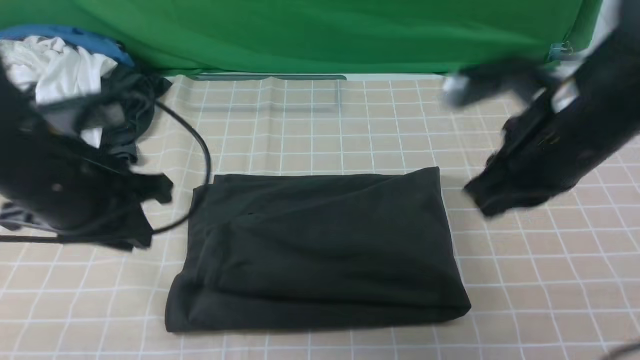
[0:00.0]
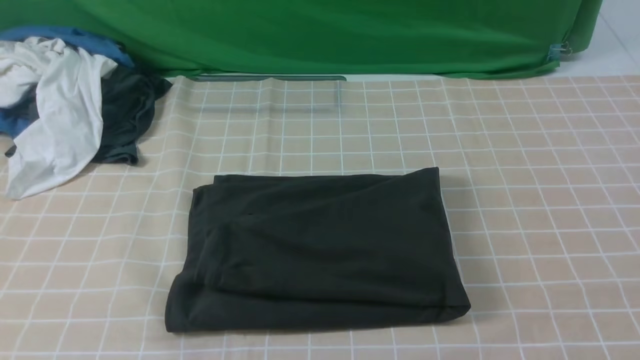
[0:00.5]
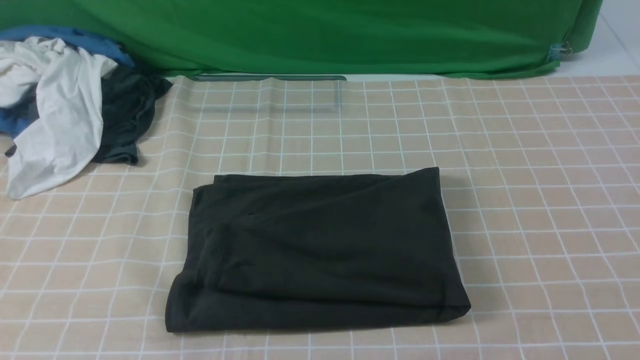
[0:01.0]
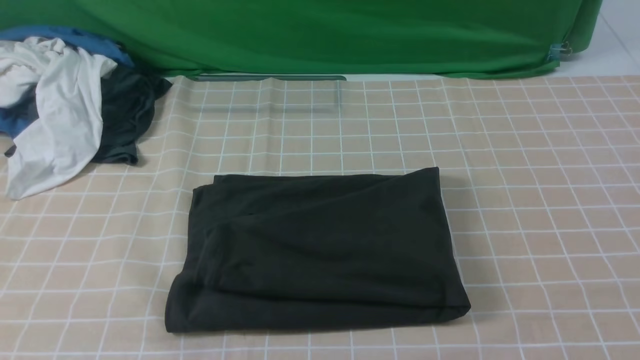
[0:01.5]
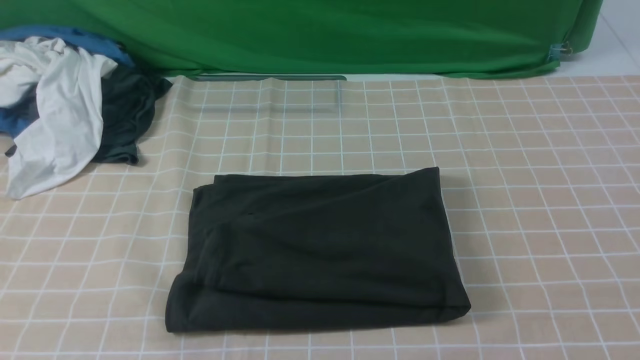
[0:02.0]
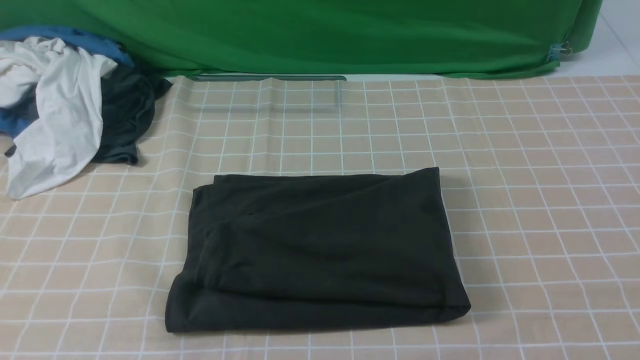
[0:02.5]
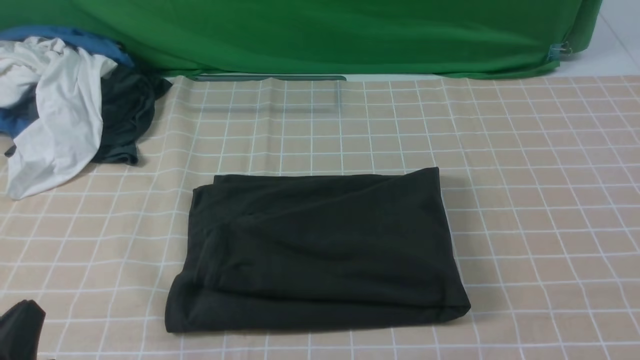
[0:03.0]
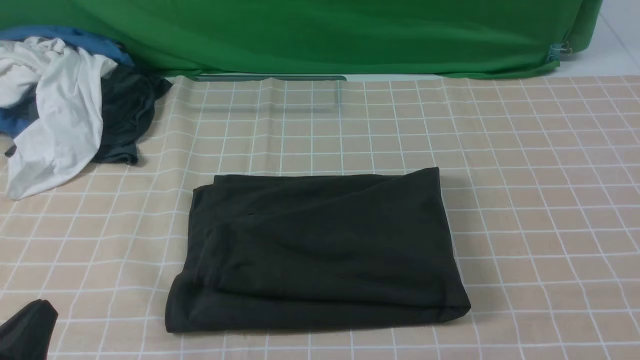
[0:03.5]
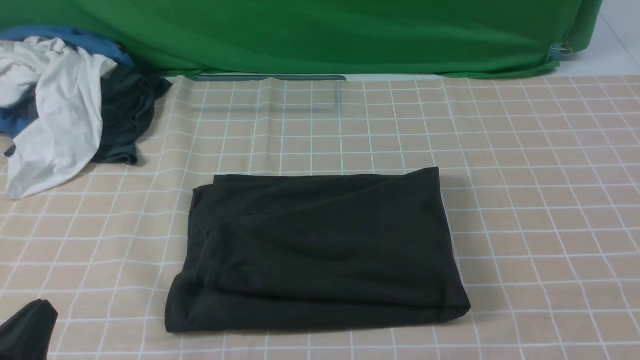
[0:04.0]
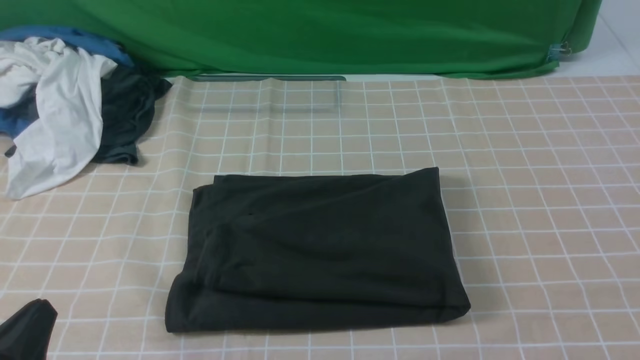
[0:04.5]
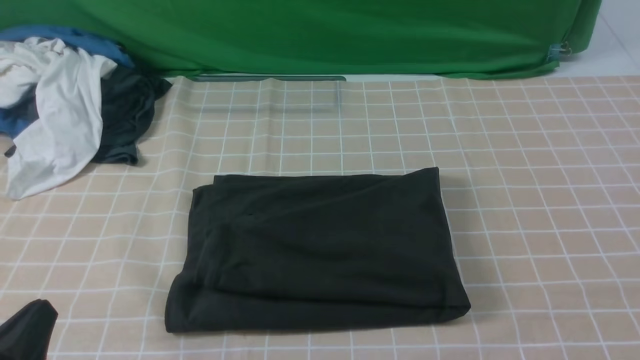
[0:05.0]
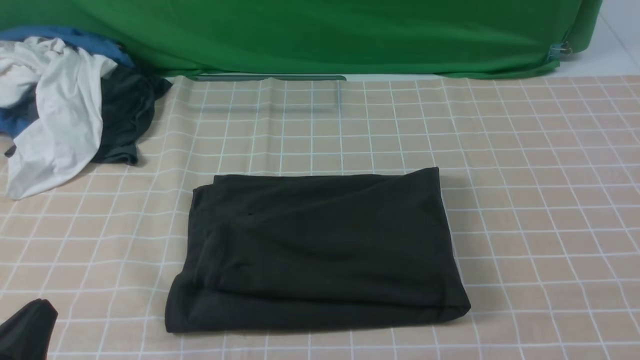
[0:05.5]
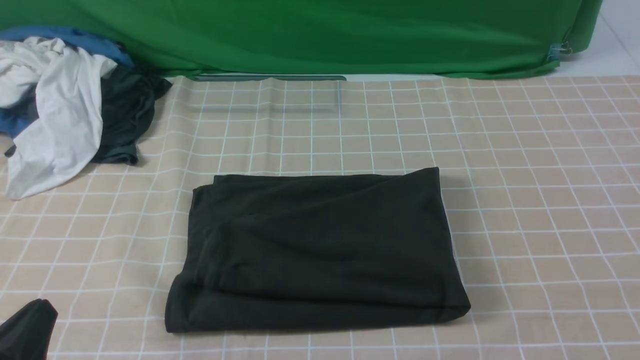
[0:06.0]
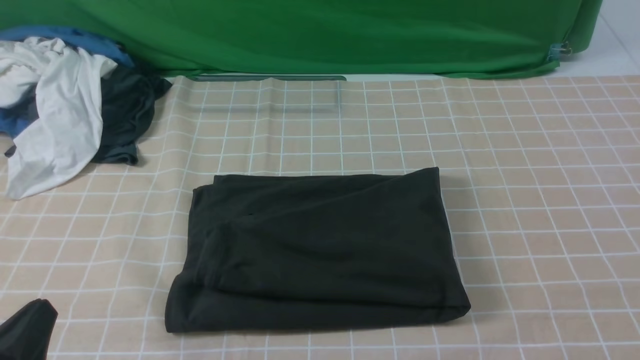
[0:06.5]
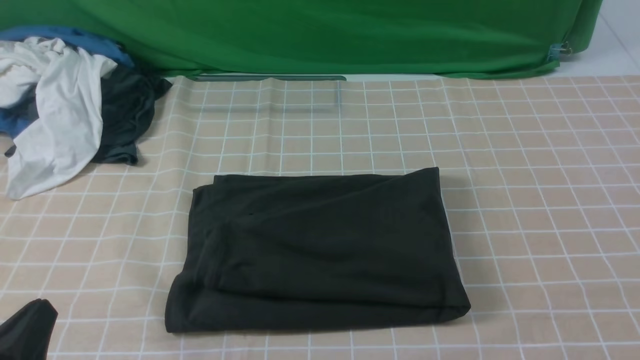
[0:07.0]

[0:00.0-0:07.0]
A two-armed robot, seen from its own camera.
0:00.0 to 0:02.0: The left gripper is displaced backward and upward by about 25 cm, while the right gripper goes about 25 cm backward and to the right.
0:02.0 to 0:03.5: The left gripper heads downward, covering approximately 25 cm.
0:05.0 to 0:07.0: The two grippers keep their place.
